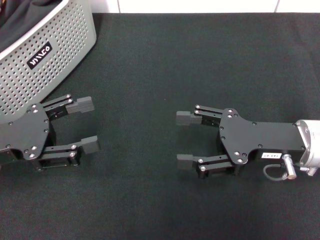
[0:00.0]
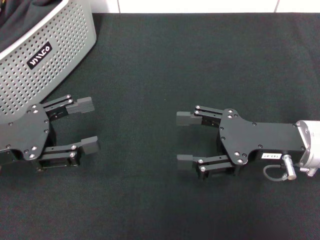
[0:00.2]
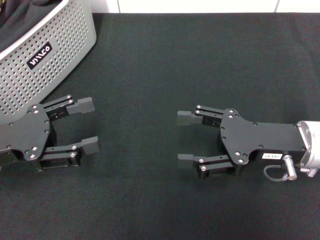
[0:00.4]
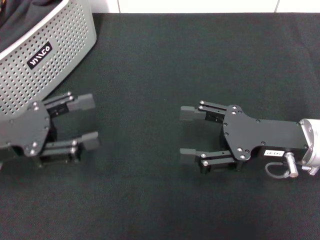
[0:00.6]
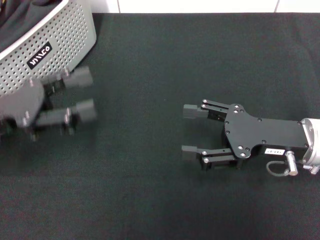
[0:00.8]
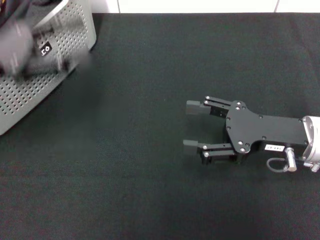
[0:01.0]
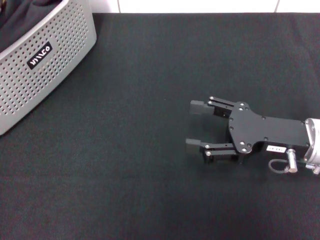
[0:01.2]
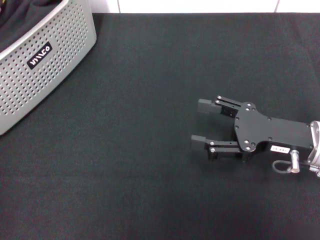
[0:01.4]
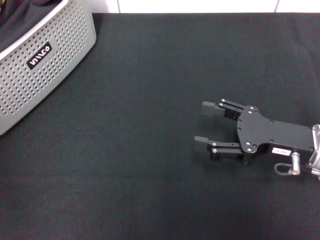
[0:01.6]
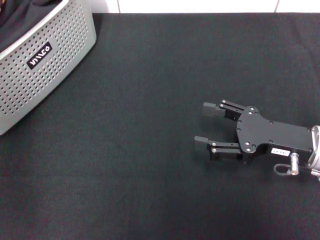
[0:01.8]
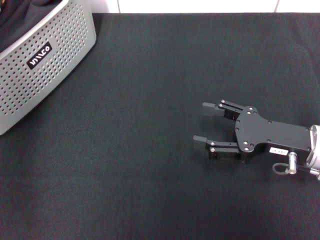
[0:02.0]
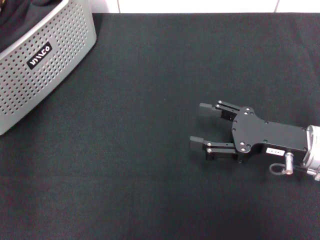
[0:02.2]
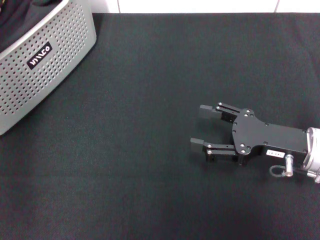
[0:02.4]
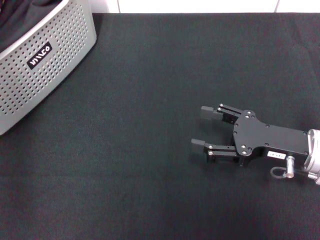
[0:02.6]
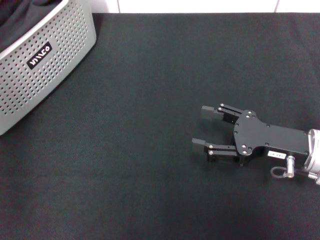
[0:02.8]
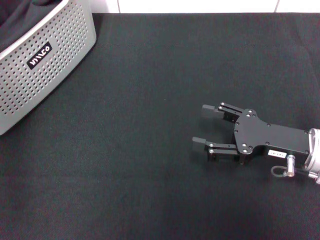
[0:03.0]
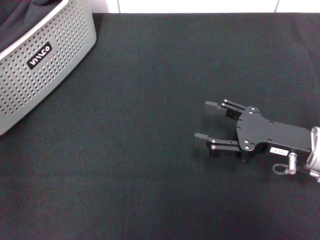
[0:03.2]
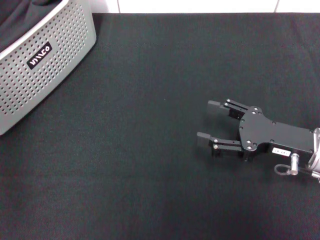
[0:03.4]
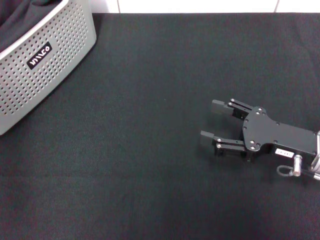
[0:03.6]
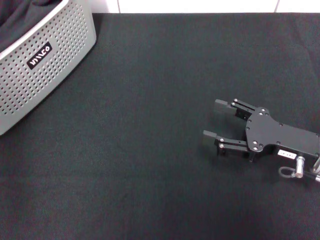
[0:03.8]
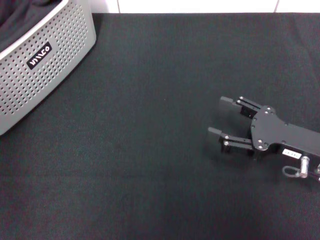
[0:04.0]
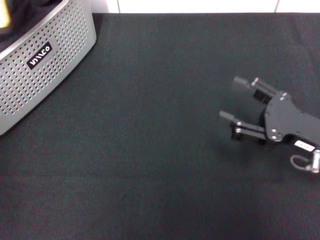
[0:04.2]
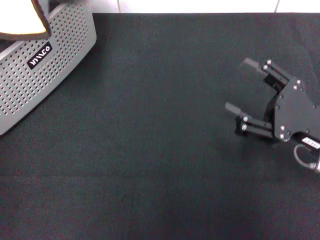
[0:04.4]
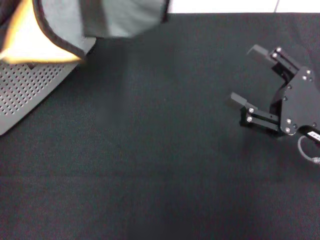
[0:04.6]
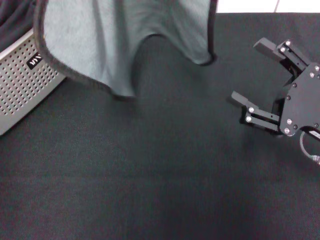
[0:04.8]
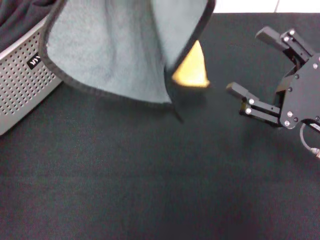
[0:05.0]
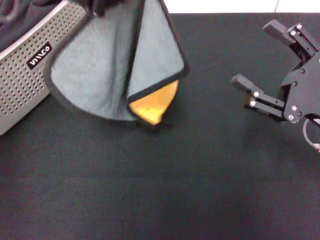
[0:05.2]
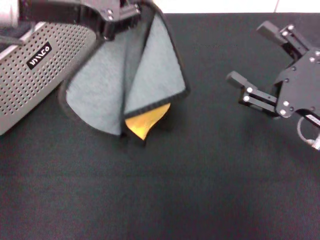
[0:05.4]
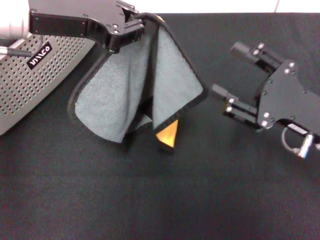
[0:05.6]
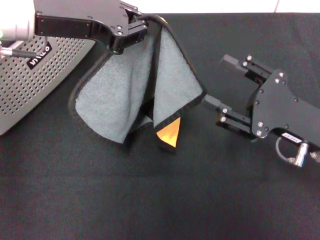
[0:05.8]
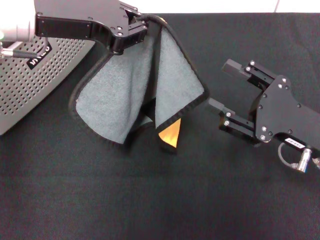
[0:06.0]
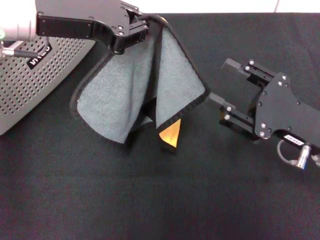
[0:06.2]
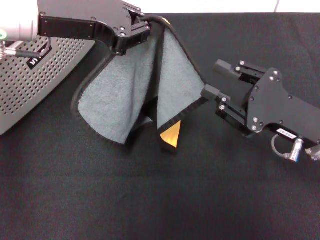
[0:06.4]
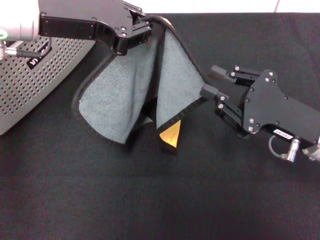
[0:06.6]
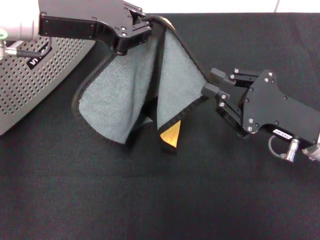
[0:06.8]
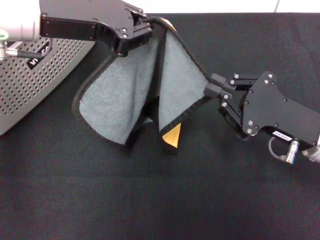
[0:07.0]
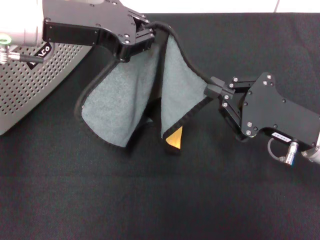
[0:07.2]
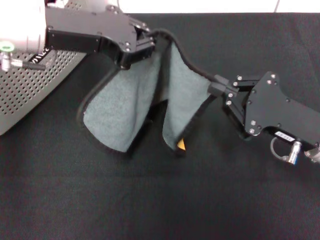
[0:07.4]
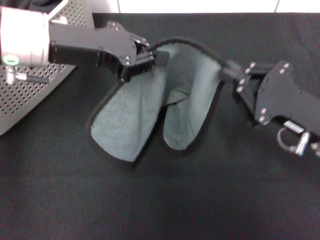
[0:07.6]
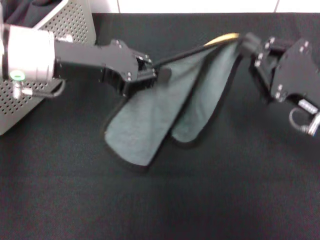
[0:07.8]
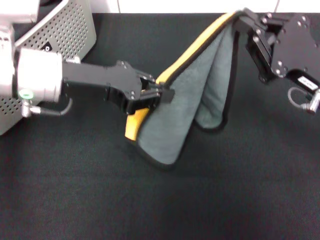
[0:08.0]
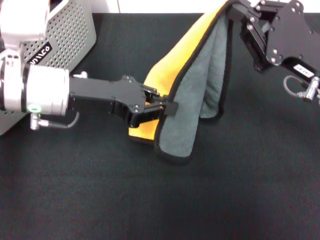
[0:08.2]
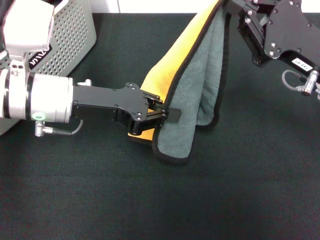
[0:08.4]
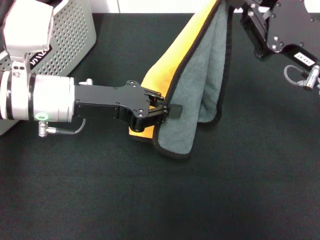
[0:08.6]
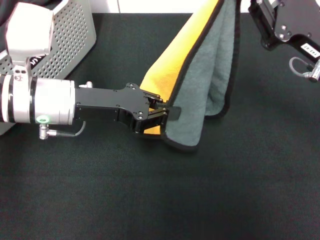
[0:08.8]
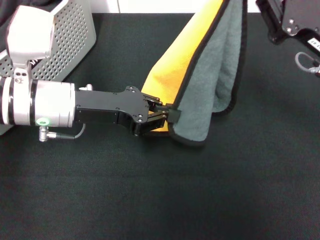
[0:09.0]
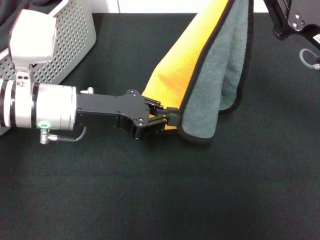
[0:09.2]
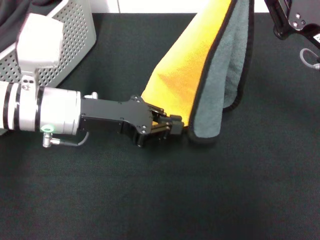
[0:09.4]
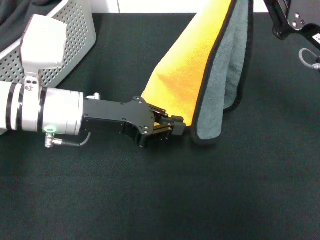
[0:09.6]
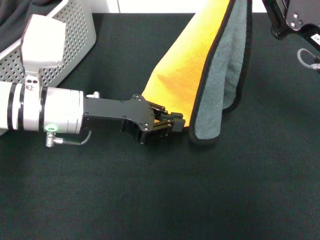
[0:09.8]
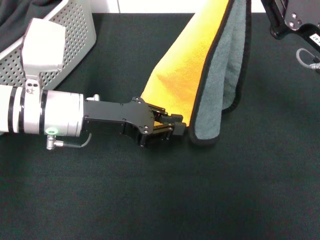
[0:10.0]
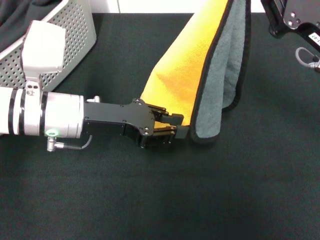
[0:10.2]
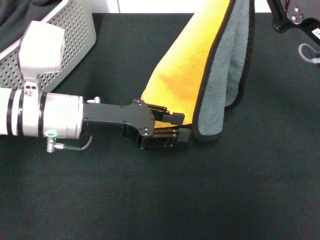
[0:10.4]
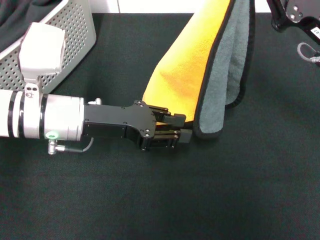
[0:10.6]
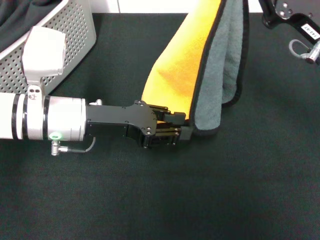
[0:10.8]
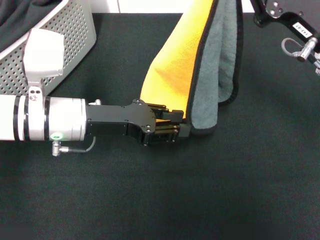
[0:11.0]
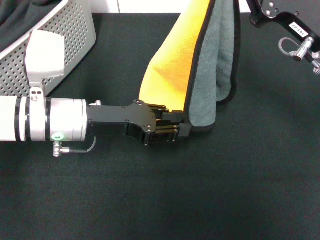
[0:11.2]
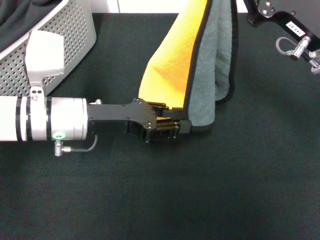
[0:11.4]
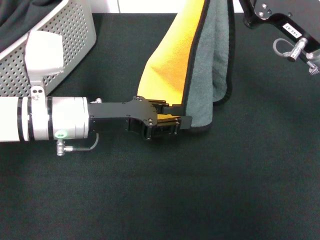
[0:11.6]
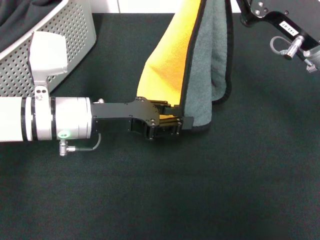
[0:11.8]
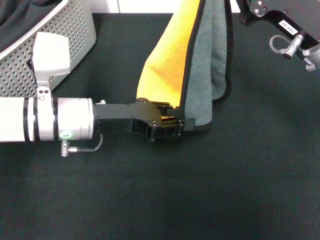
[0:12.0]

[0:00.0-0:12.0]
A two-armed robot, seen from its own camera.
Task of the whole recording: pick up the towel from the storage box and lay it flat on the black tablecloth.
Step, 0:00.0 to 0:03.0: Pick up a towel with the left gripper.
Step, 0:03.4 to 0:07.2: Spread the towel flat with the left gripper.
0:00.0 to 0:01.6: The left gripper goes roughly 25 cm upward and forward.
0:01.6 to 0:03.0: The left gripper travels downward and forward by roughly 10 cm.
0:03.0 to 0:04.4: The left gripper travels upward and backward by roughly 10 cm, and closes its fingers.
0:04.4 to 0:06.0: The left gripper heads downward and to the right, covering approximately 10 cm.
0:06.0 to 0:07.6: The right gripper closes.
0:07.6 to 0:09.0: The left gripper moves downward, approximately 10 cm, while the right gripper travels upward and forward by approximately 10 cm.

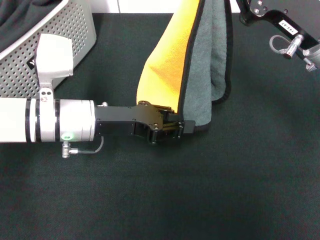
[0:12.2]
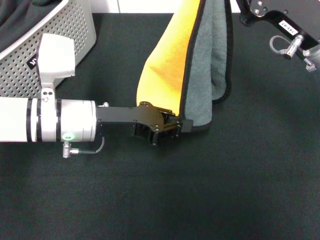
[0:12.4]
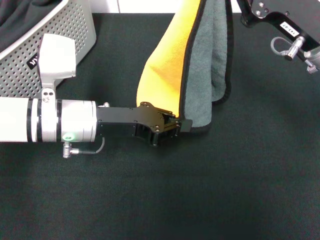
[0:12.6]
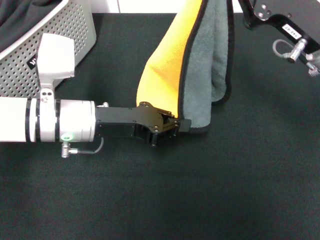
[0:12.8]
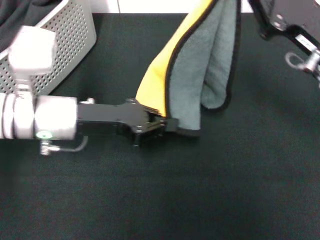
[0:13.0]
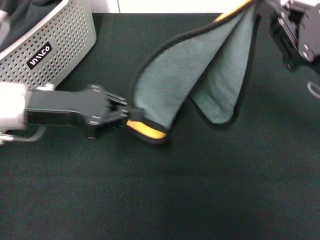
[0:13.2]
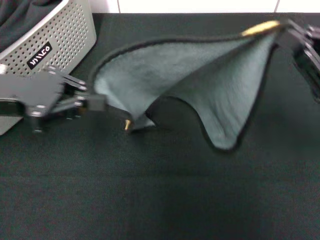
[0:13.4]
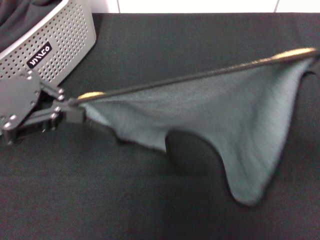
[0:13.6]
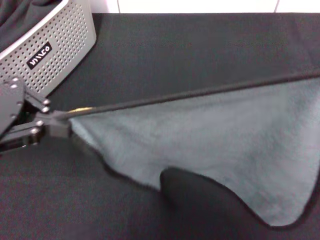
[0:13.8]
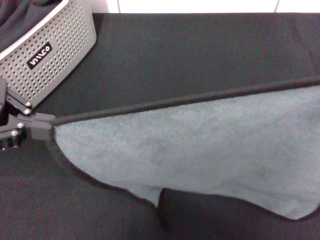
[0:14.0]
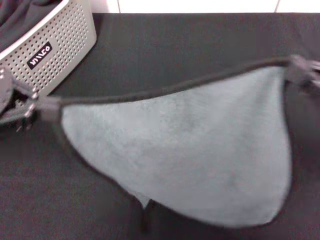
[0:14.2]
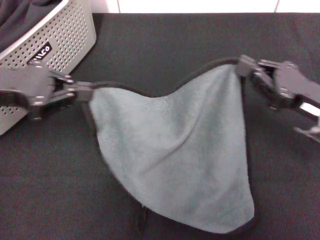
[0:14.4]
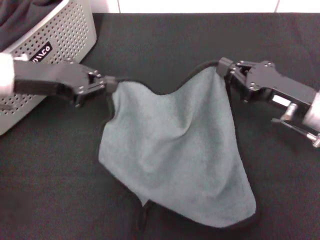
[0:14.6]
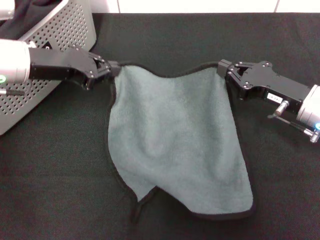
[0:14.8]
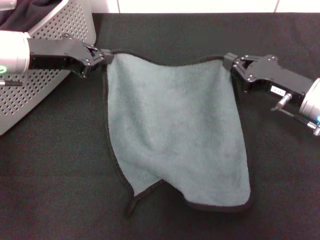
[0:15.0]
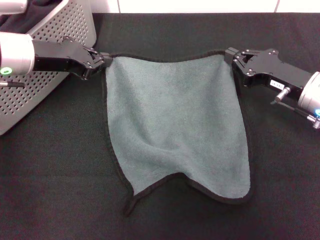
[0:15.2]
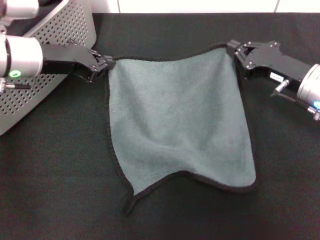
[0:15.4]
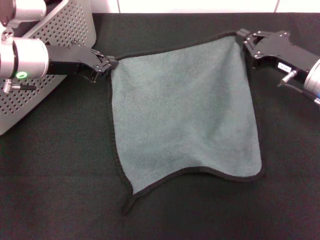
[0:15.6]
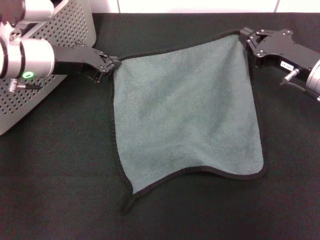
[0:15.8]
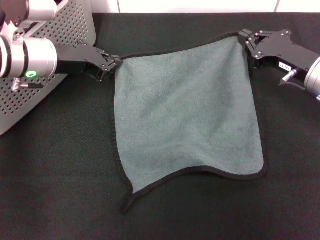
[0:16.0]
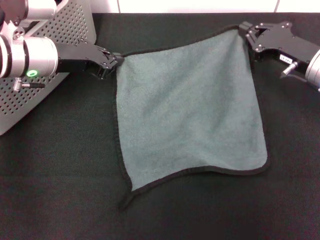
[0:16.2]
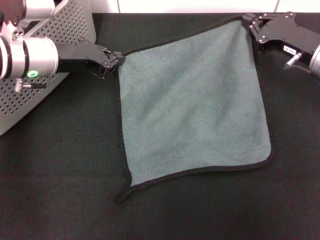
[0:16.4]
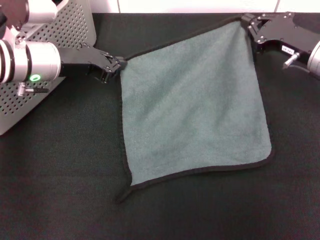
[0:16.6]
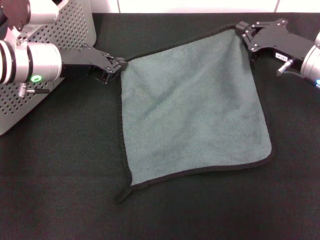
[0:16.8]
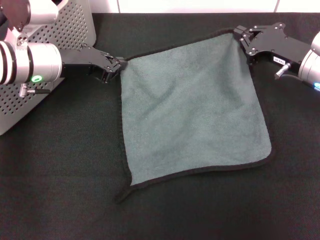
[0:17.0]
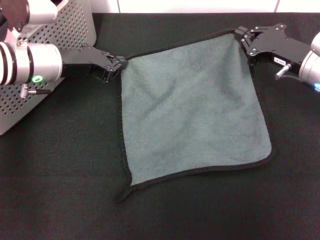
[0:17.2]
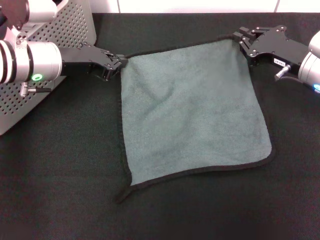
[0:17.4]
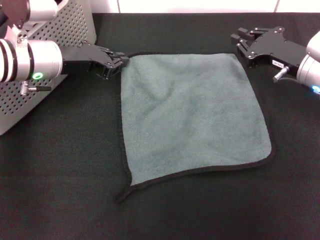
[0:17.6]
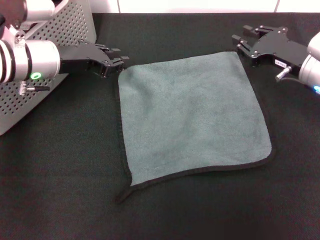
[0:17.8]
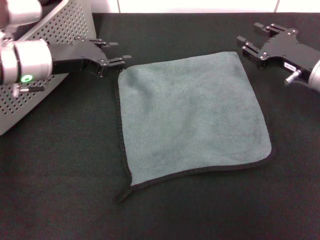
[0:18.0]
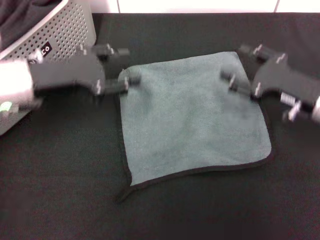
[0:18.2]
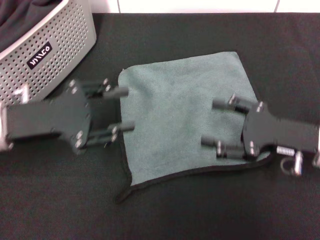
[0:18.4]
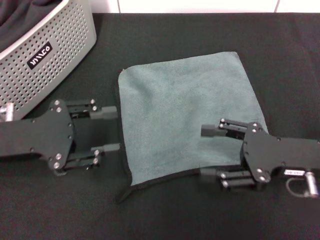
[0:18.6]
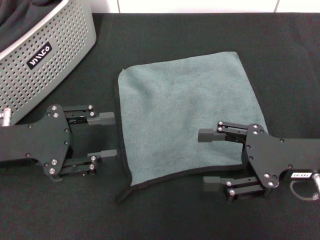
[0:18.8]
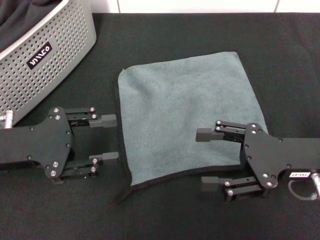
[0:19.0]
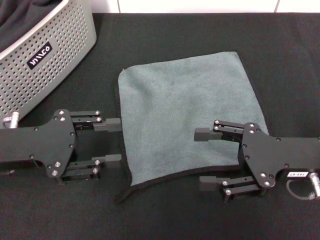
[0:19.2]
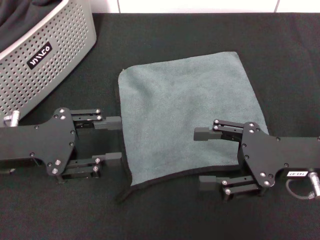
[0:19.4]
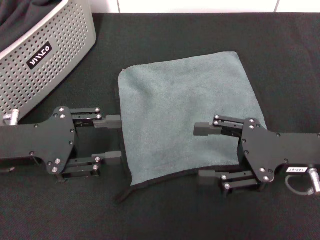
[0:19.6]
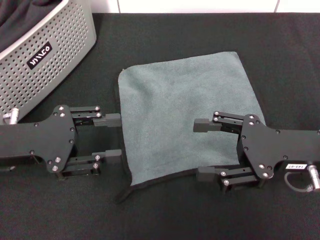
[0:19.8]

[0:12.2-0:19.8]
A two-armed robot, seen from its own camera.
Task of the whole recording: pick up the towel from the storage box and lay it flat on the black tablecloth.
Step, 0:12.2 to 0:17.6: Spread the towel flat with the right gripper.
0:12.2 to 0:13.8: The right gripper is displaced backward and to the right by some 15 cm. The left gripper shifts about 20 cm to the left and upward, and closes up.
0:13.8 to 0:15.2: The left gripper shifts about 15 cm forward, downward and to the right. Meanwhile the right gripper moves forward, to the left and downward, approximately 15 cm.
0:16.8 to 0:18.2: The two grippers go some 5 cm backward. The right gripper opens, while the left gripper opens.
0:18.2 to 0:19.8: The grippers both shift backward by roughly 5 cm. The right gripper opens up.

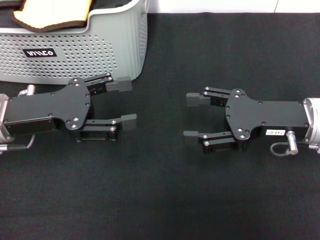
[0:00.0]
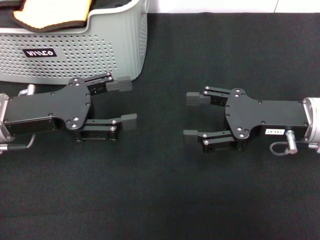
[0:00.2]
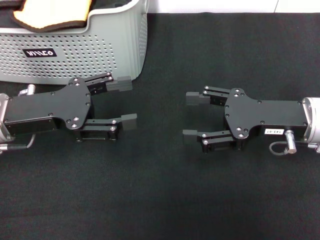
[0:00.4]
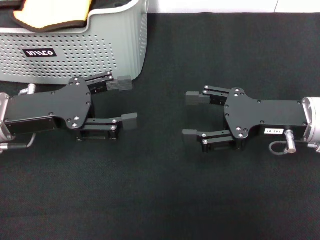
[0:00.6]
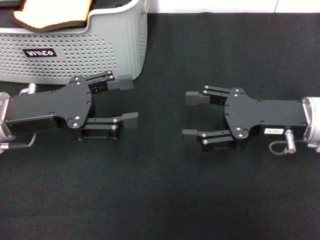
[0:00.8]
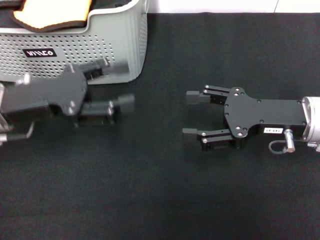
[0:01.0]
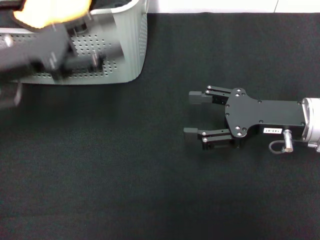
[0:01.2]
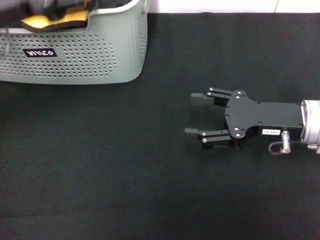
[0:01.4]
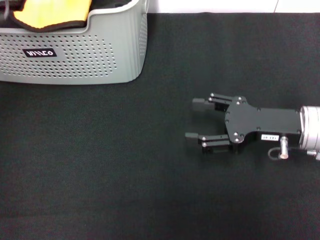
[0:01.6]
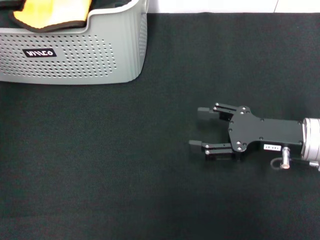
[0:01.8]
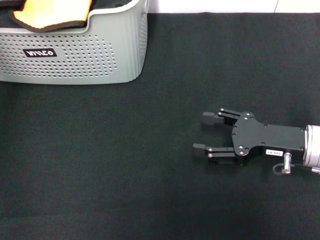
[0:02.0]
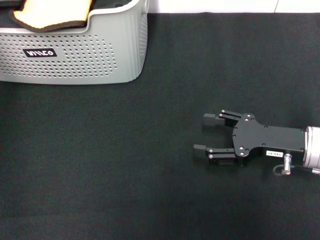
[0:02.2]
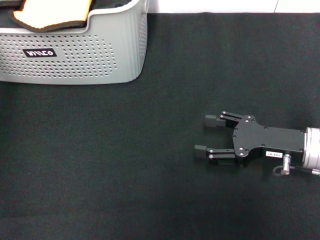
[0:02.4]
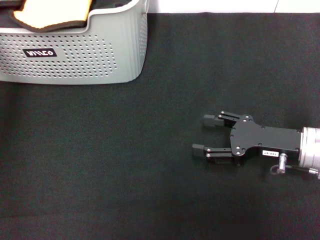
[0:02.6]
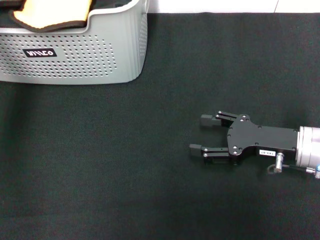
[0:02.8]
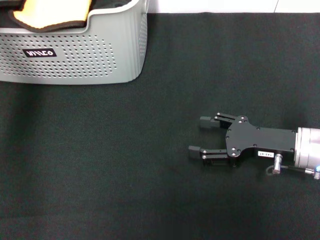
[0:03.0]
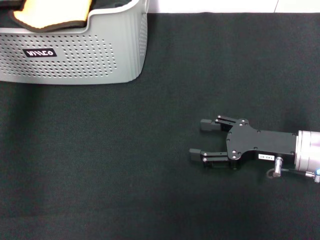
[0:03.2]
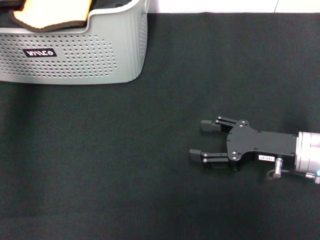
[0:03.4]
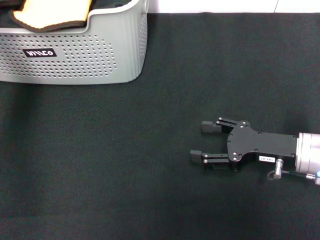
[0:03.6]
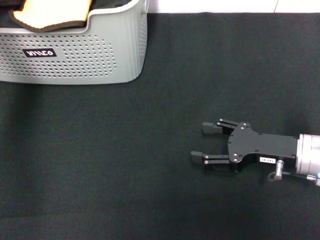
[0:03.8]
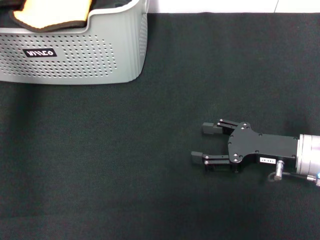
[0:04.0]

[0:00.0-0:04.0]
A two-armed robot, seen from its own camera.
Task of the whole recording: pick up the towel from the storage box and lay it flat on the black tablecloth.
Step, 0:00.0 to 0:03.6: Pick up a towel with the left gripper.
0:00.0 to 0:01.4: The left gripper goes approximately 10 cm upward and forward.
0:01.4 to 0:02.6: The left gripper travels upward and forward by approximately 10 cm.
0:02.6 to 0:04.0: The left gripper moves downward, about 5 cm, and closes up.
